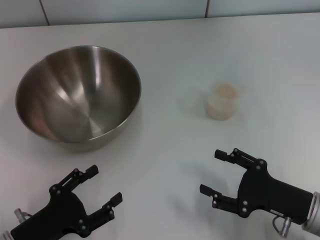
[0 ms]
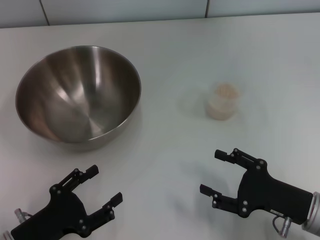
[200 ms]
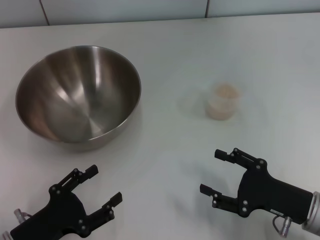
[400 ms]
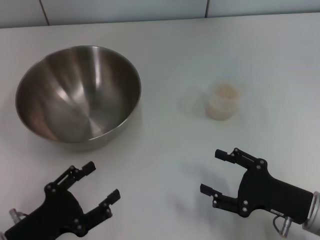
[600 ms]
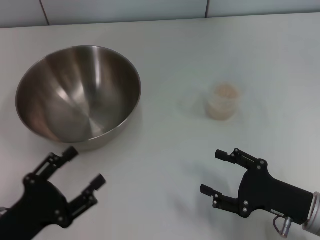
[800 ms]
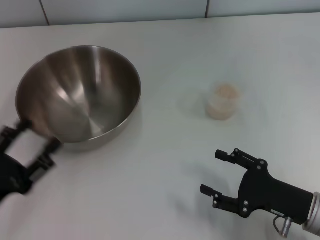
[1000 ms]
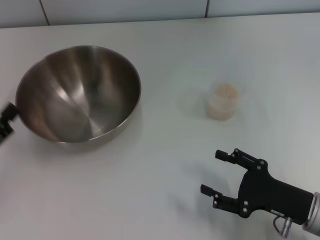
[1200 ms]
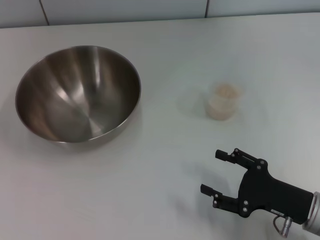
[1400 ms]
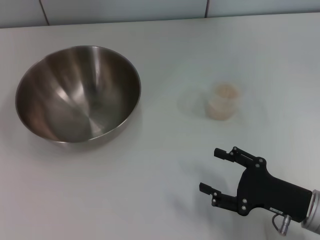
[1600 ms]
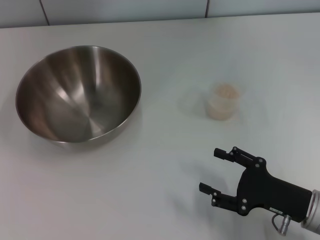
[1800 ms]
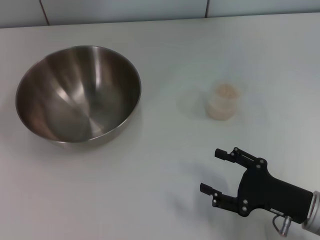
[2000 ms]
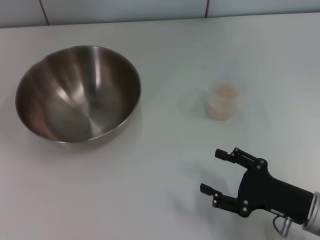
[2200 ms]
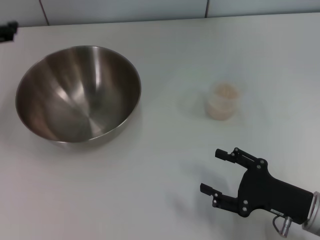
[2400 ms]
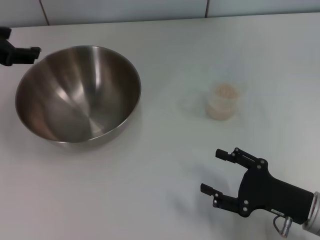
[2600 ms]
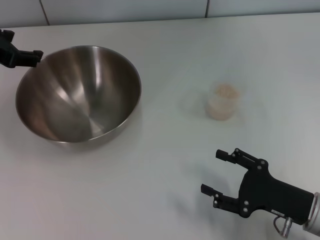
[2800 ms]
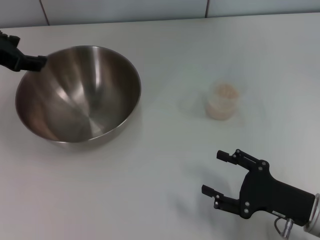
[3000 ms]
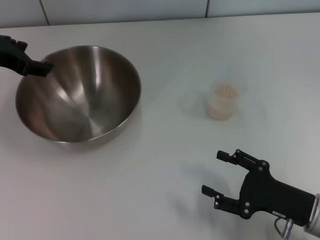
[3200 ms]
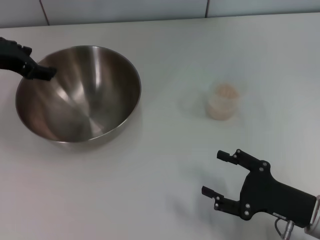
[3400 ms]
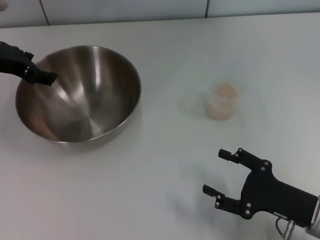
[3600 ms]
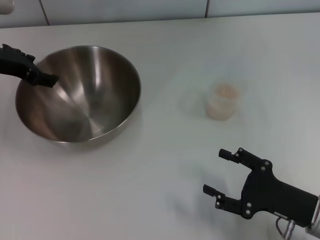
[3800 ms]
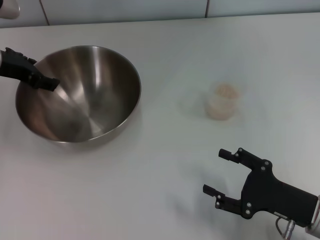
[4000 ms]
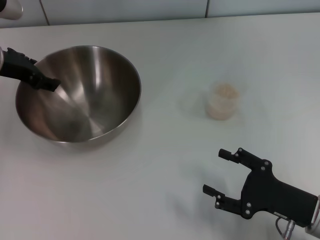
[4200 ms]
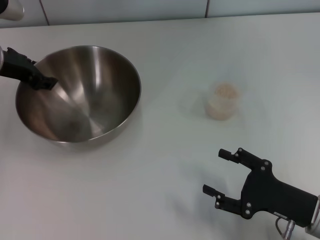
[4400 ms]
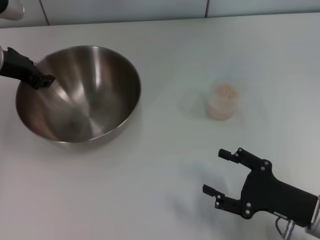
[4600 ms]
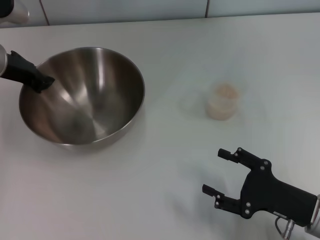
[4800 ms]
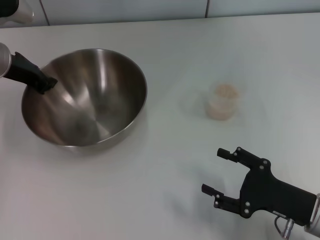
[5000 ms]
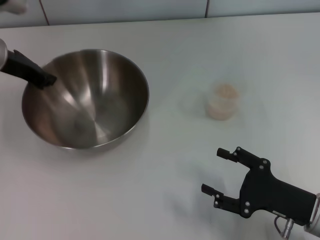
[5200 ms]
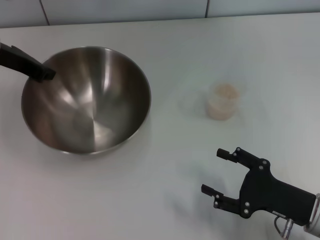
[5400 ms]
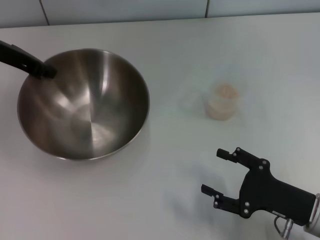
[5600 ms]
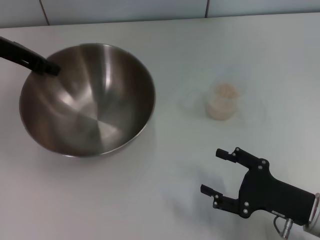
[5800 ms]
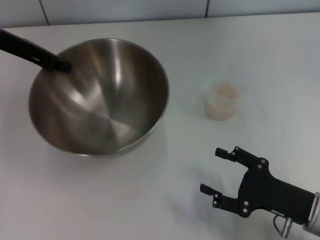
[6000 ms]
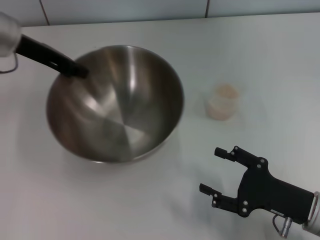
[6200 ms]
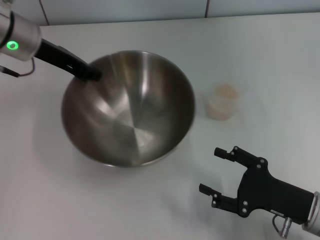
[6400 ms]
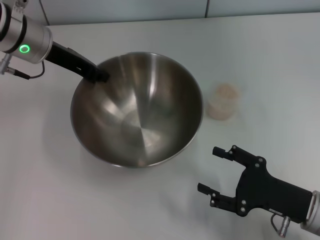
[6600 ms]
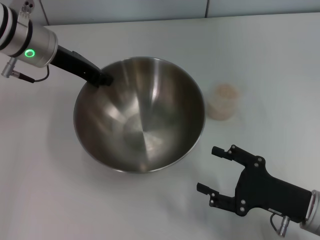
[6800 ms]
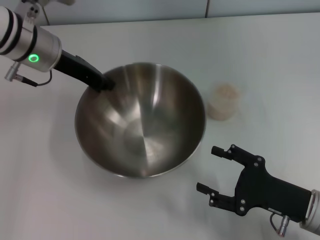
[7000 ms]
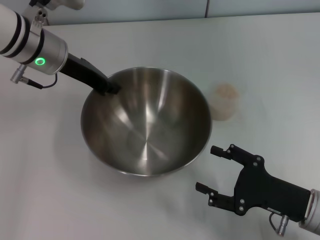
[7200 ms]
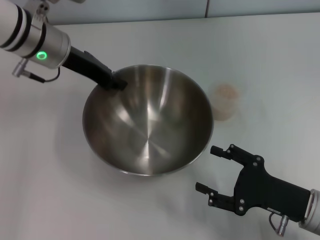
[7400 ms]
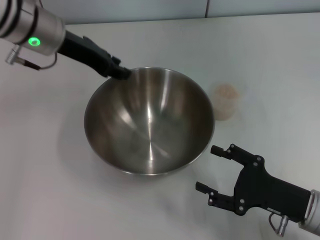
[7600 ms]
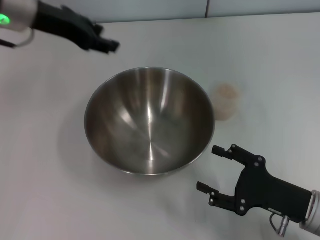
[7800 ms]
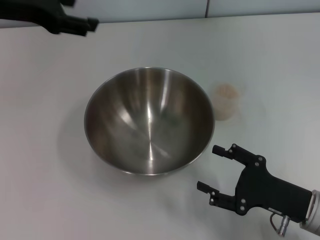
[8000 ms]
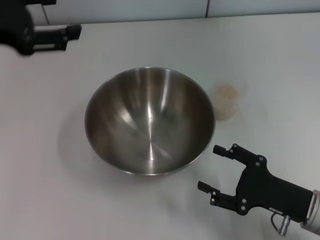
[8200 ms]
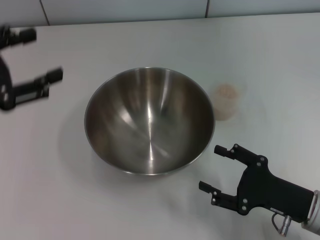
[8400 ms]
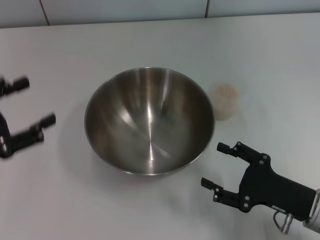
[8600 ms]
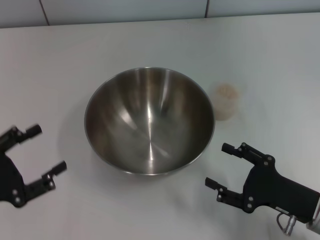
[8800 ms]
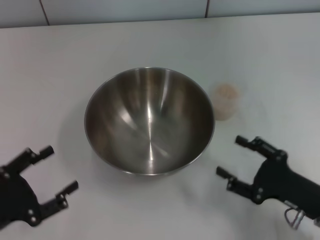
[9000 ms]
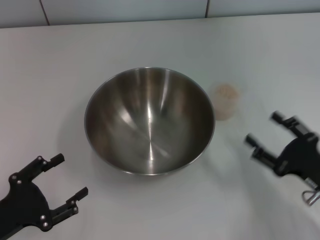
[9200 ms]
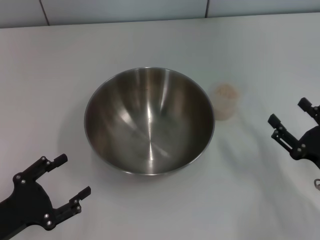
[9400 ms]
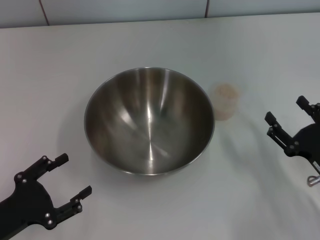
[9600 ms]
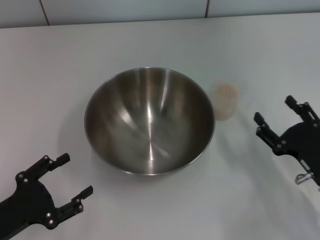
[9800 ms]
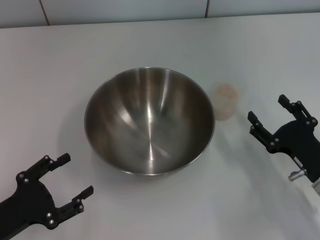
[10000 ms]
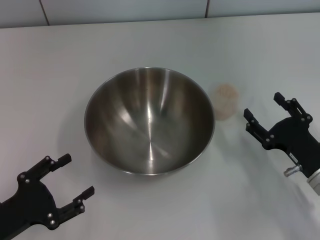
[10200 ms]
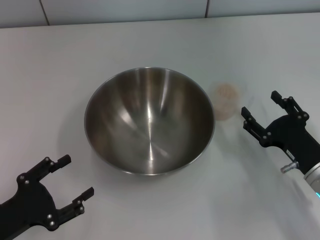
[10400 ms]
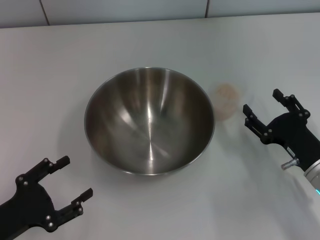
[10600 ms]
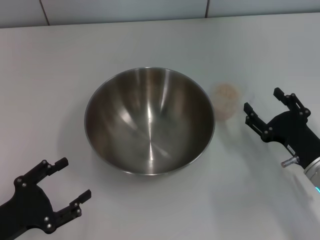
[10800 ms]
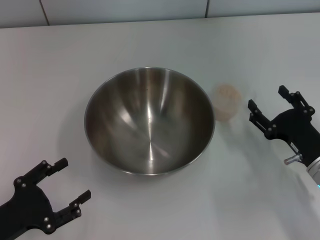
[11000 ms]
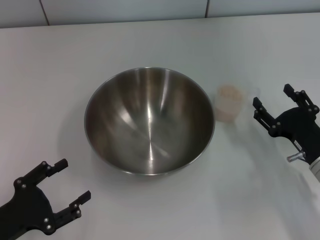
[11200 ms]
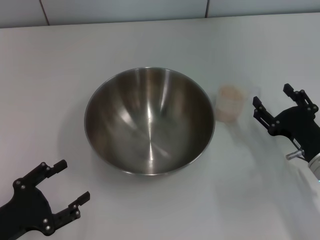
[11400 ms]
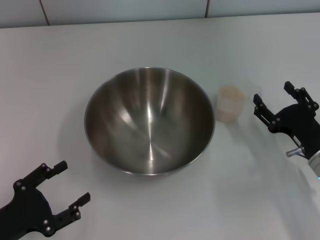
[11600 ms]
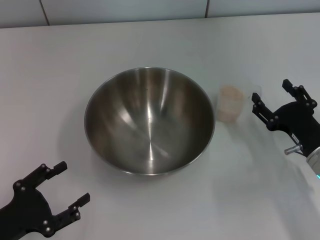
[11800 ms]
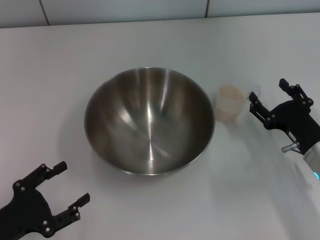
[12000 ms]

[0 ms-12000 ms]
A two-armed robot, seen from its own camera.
Task of the whole recording: Place the bowl in the middle of the table with one hand and pour the rice from the grain cup into it with the other hand.
Step, 0 ms to 5800 ms: Pick up the bowl with the left gripper.
Step, 6000 ms to 7800 ms: Place the bowl in the center of view with the left gripper.
0 ms to 1600 ms: The left gripper goes some 25 cm upward, to the left and forward.
1600 ms to 3000 ms: The left gripper heads to the right, forward and upward, covering roughly 15 cm.
3000 ms to 4400 ms: The left gripper shifts by about 5 cm.
4400 ms to 6000 ms: The left gripper closes up.
6000 ms to 7600 ms: The left gripper shifts roughly 10 cm to the right, and opens up.
7600 ms to 9000 ms: The left gripper shifts about 35 cm backward, downward and to the left, and opens up.
10400 ms to 12000 ms: The grippers stay close to where they were, moving slightly.

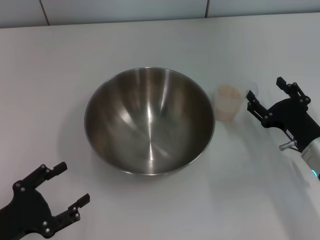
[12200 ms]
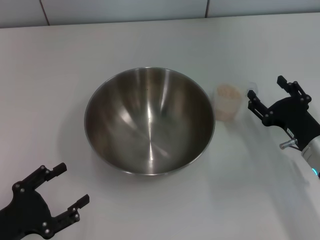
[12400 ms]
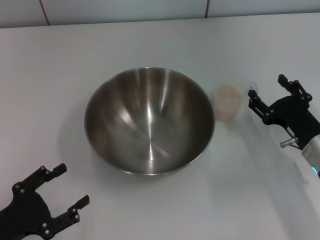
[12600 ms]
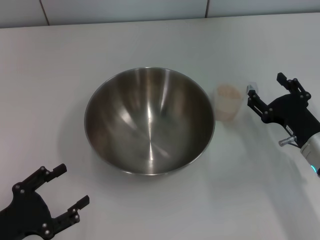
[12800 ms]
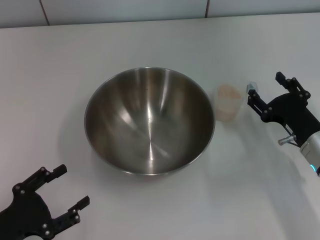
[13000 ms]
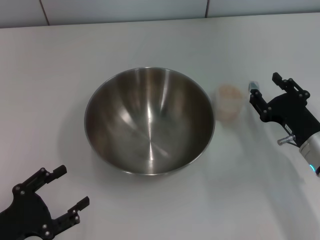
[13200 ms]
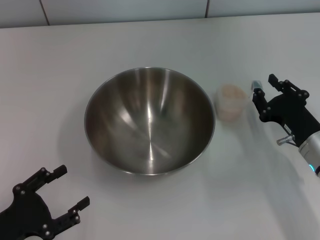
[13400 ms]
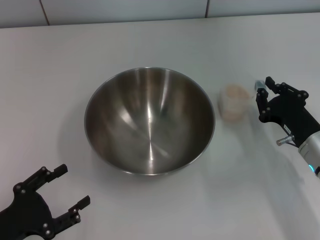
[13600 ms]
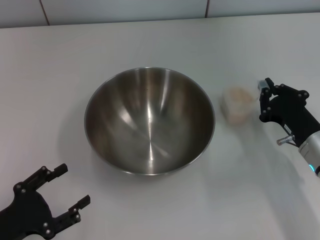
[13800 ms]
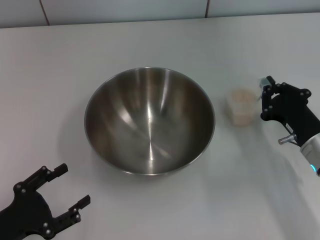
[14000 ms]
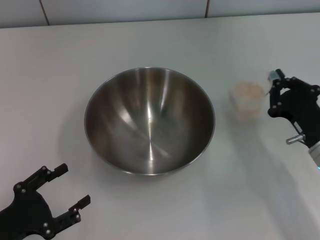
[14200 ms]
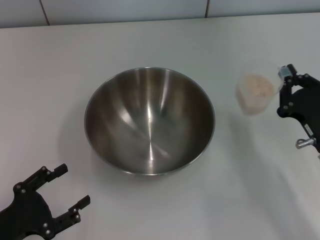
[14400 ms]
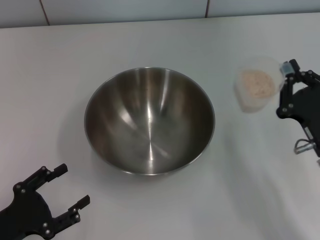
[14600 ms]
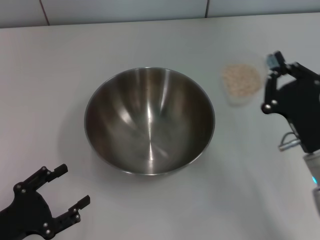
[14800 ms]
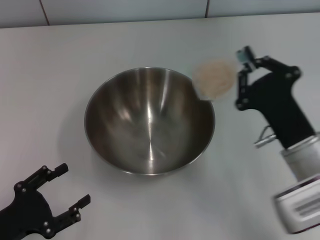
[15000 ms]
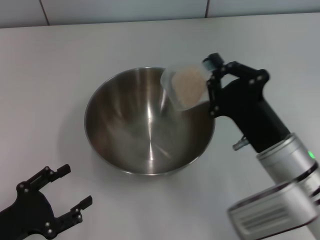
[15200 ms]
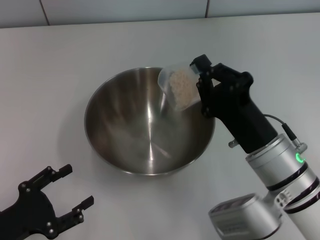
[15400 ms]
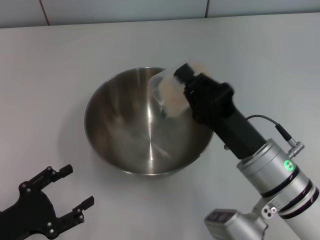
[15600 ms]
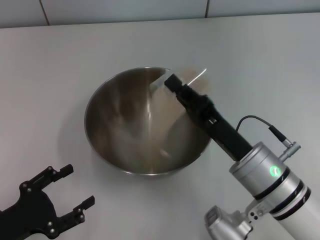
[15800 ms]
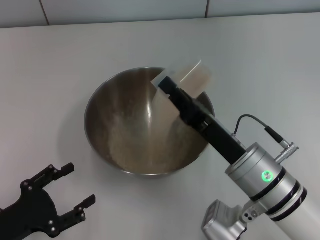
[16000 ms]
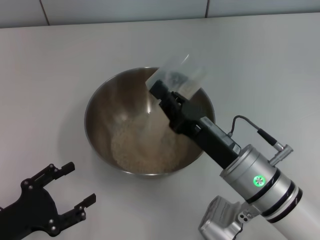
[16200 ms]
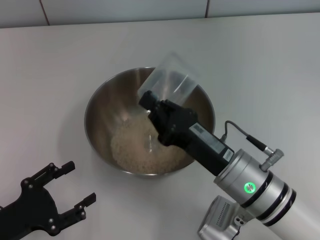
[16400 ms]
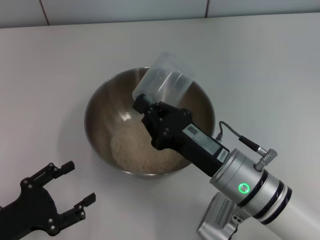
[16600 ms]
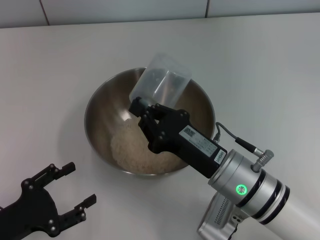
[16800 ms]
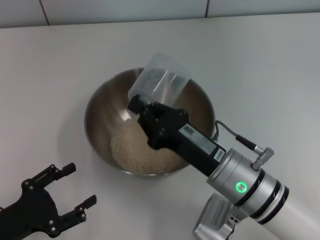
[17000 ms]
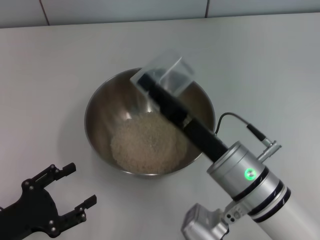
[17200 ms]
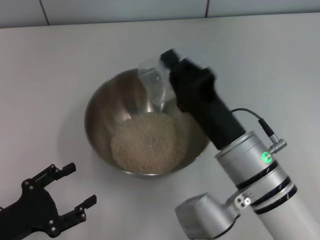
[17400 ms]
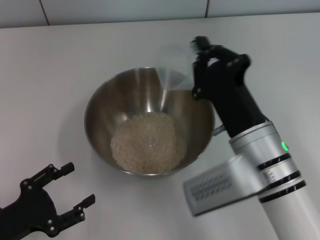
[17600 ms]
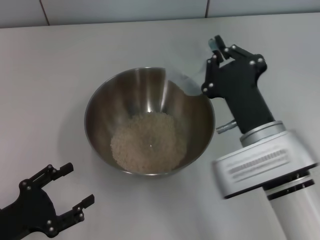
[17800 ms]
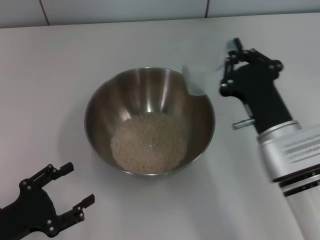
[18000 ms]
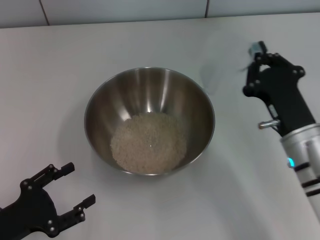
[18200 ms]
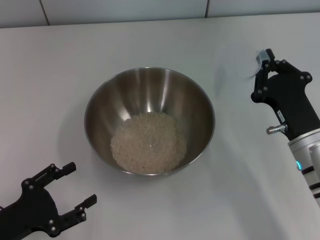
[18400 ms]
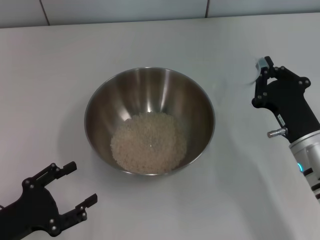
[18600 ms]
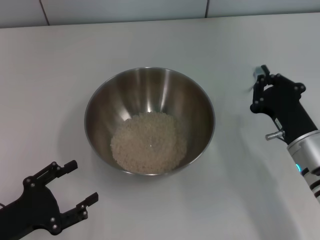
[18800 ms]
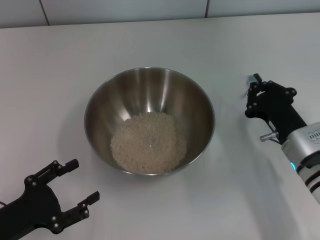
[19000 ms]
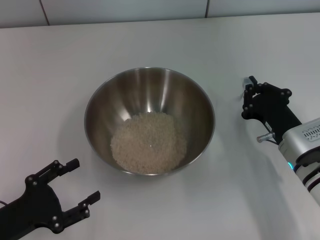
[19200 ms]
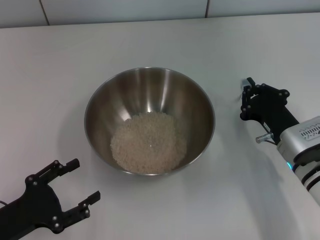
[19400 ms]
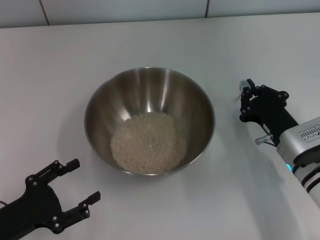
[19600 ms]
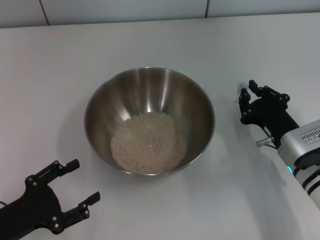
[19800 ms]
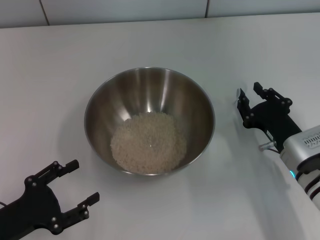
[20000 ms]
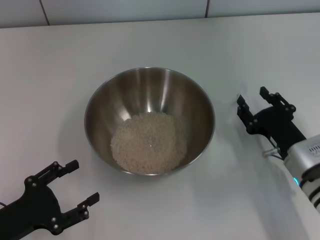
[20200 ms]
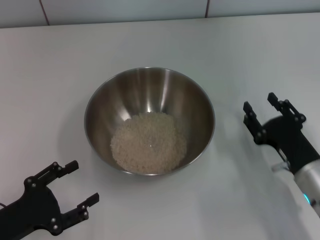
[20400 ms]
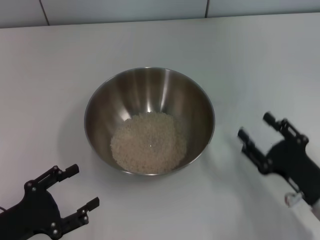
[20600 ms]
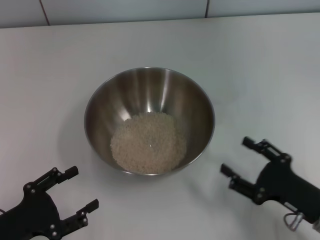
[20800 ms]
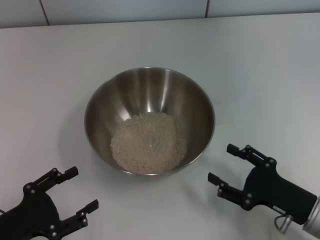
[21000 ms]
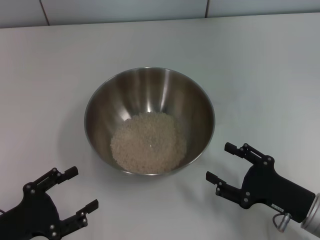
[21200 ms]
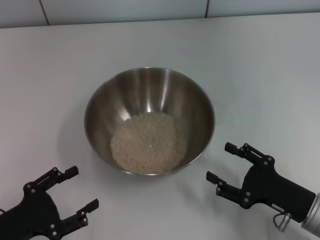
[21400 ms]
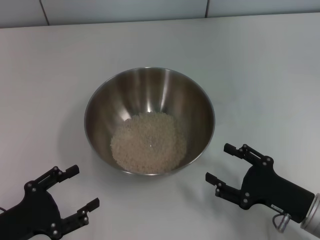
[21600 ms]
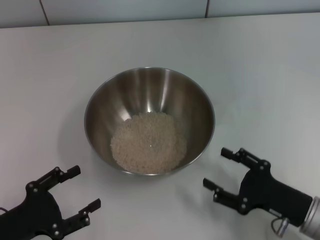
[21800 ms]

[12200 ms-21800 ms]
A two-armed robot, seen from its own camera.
Task of the whole recording: Place the bowl in the middle of the table with one hand and pour the rice from the grain cup into it with the other hand.
Step, 12200 ms to 14600 ms: Pick up the cup with rice in it with the right gripper.
Step, 14800 ms to 17400 ms: Pour the rice from the cup into the bowl with the right gripper.
Step, 17600 ms to 20200 ms: Place the cup on the table with the right gripper.
12200 ms to 13800 ms: The right gripper closes its fingers.
13800 ms to 15400 ms: The right gripper moves to the left and upward, roughly 10 cm.
17000 ms to 18600 ms: The right gripper travels to the right by some 10 cm.
18600 ms to 20200 ms: The right gripper opens its fingers.
20200 ms to 21800 ms: The right gripper moves backward, some 5 cm, and opens its fingers.
